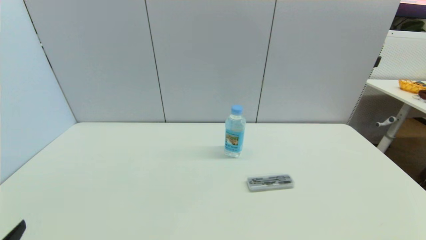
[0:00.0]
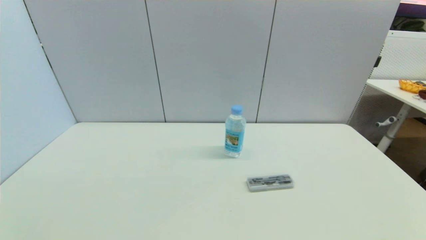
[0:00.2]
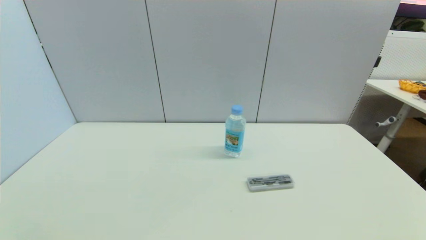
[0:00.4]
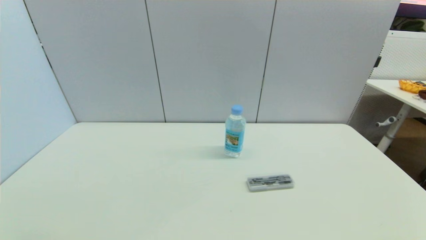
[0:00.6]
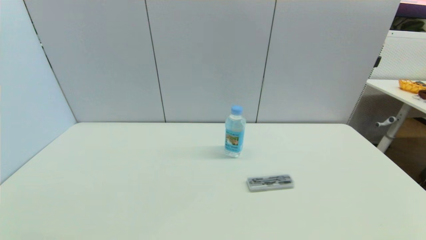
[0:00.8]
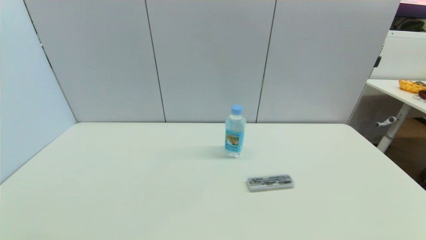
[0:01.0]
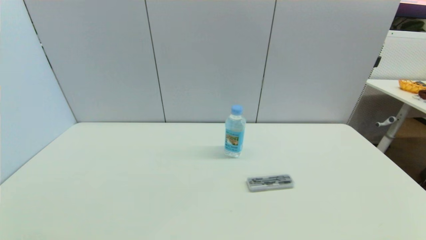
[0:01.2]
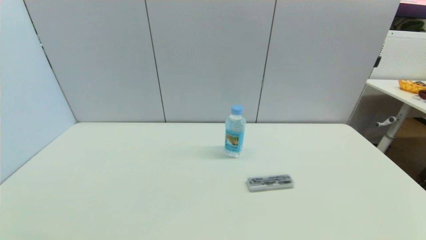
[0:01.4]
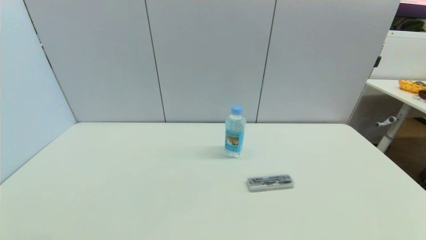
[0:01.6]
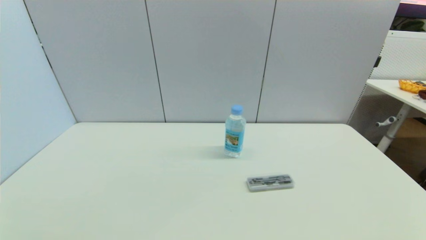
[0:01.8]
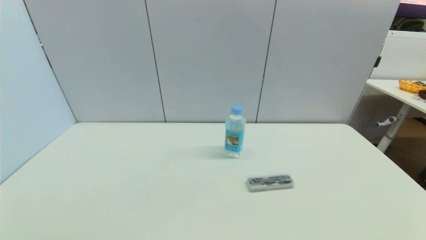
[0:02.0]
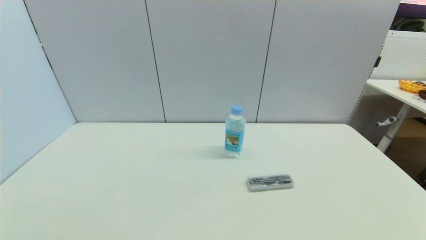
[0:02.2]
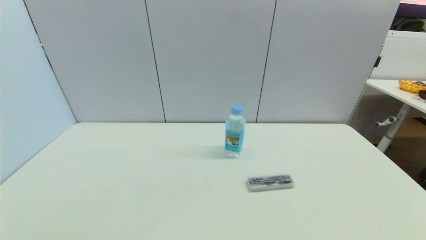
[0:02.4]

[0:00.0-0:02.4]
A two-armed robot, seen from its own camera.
0:01.2 to 0:02.4: Both grippers stay about where they are.
